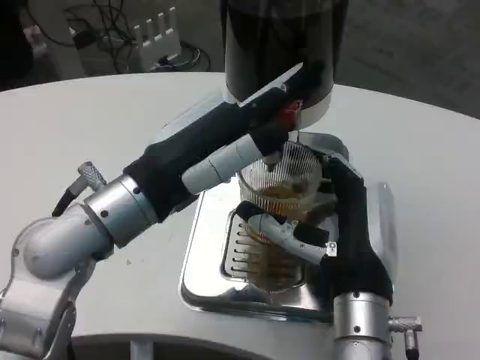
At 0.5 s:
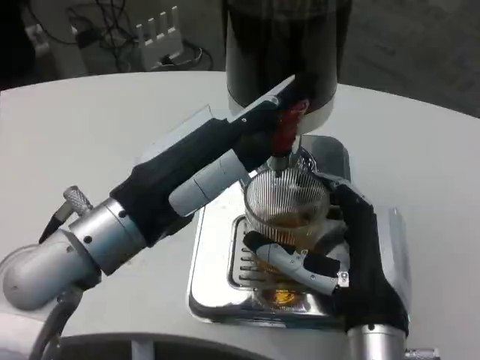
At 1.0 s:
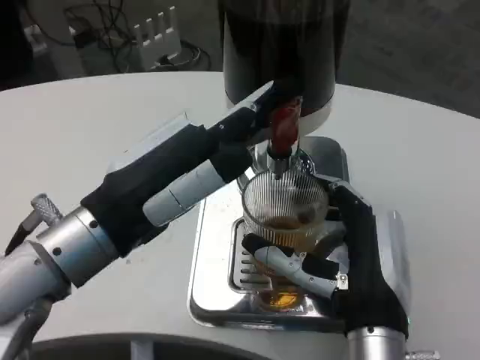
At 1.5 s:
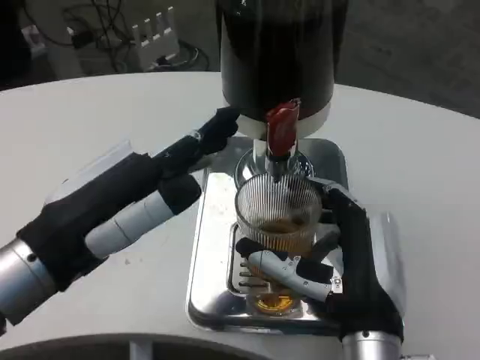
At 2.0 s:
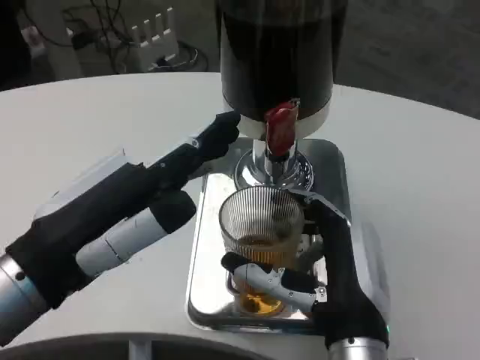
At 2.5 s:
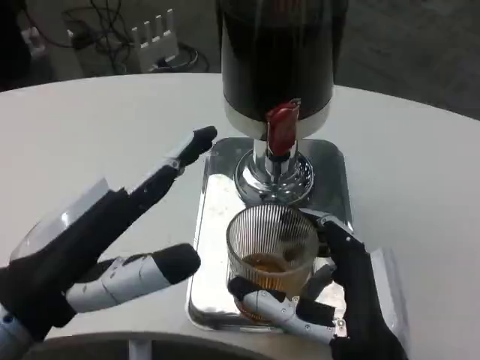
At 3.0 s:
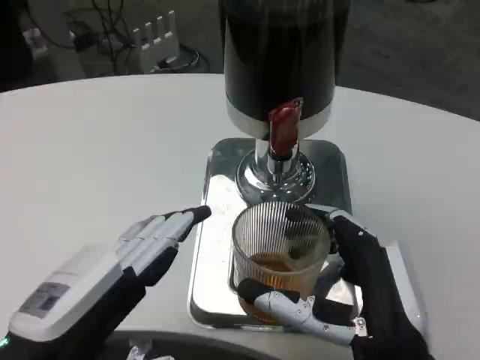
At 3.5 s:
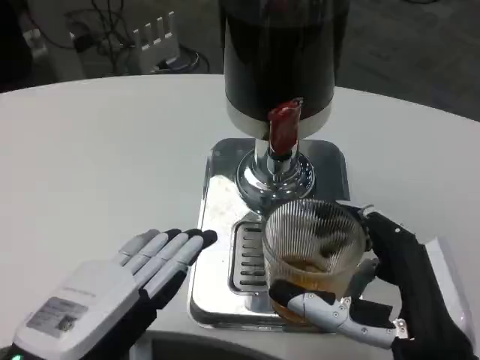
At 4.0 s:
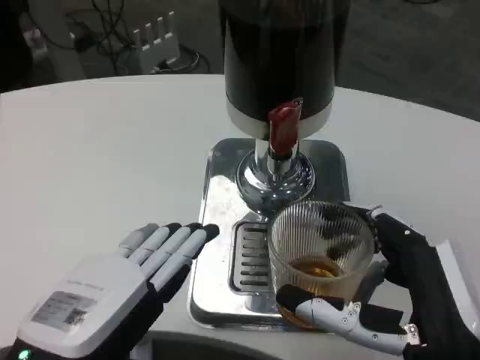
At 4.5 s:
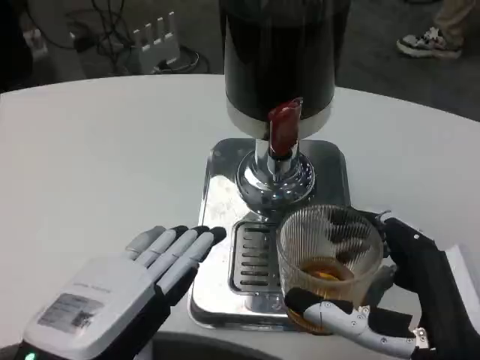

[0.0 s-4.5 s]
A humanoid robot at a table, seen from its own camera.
Task of the whole recording: Grasp the cup under the faucet to collect the drink, then remove the cup.
0.0 to 2.0 s: The left hand heads backward and to the left, covering approximately 10 cm.
2.0 to 4.5 s: The right hand heads backward and to the right, covering about 10 cm. The left hand goes about 10 cm downward and backward.
